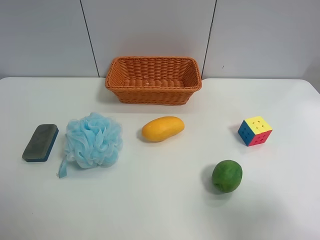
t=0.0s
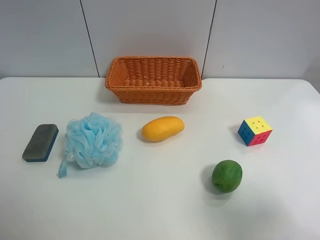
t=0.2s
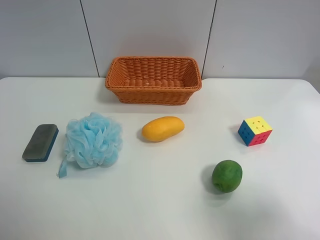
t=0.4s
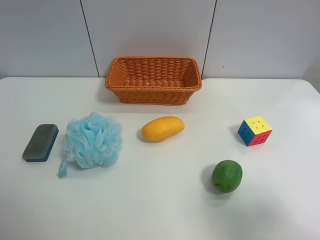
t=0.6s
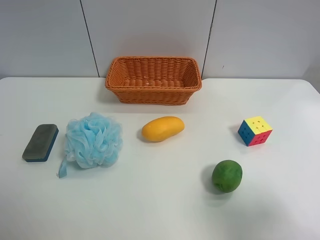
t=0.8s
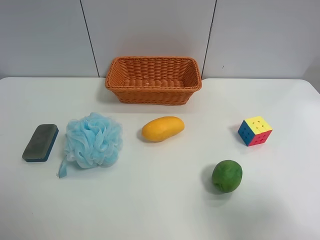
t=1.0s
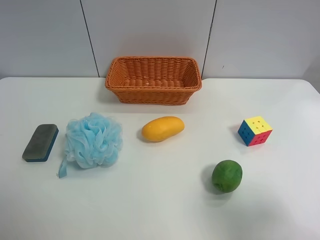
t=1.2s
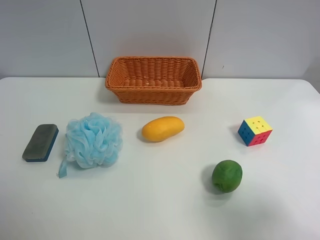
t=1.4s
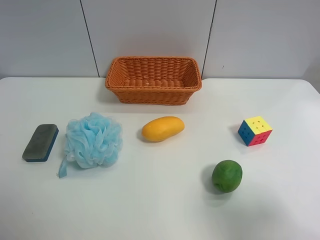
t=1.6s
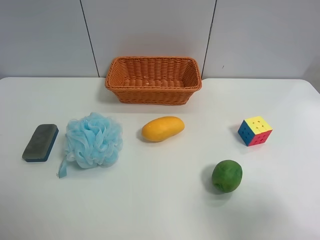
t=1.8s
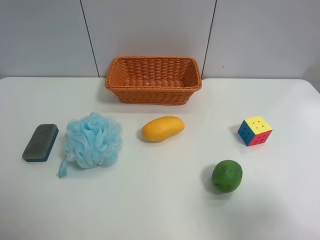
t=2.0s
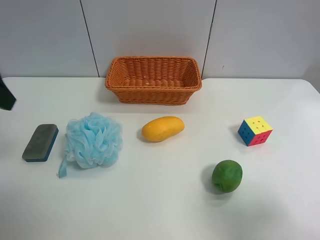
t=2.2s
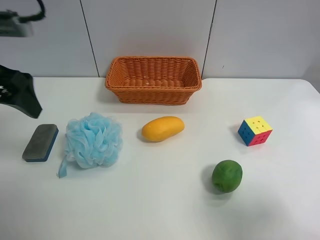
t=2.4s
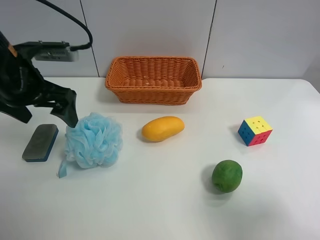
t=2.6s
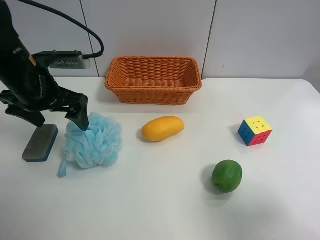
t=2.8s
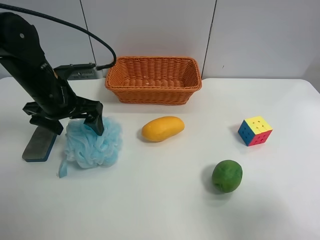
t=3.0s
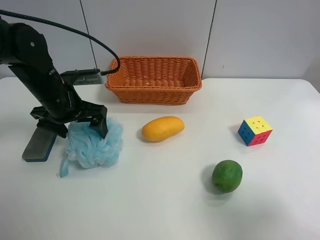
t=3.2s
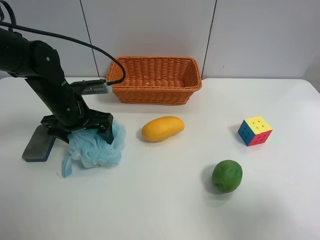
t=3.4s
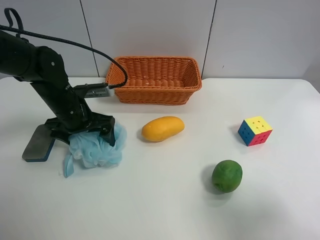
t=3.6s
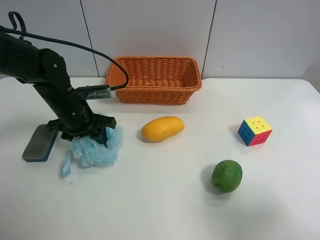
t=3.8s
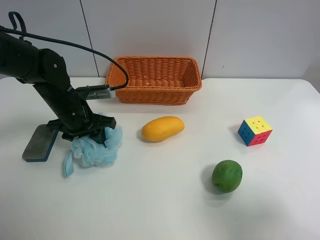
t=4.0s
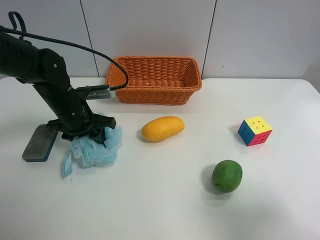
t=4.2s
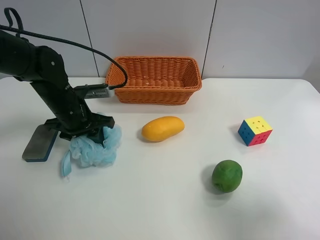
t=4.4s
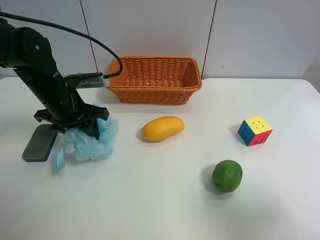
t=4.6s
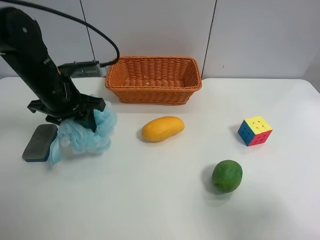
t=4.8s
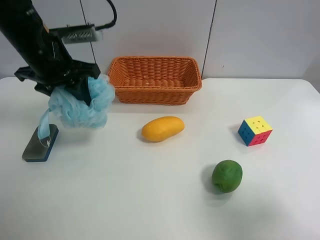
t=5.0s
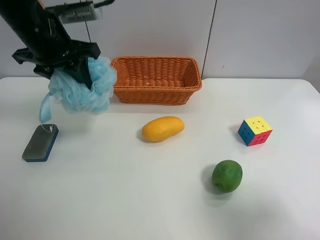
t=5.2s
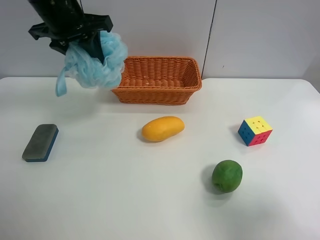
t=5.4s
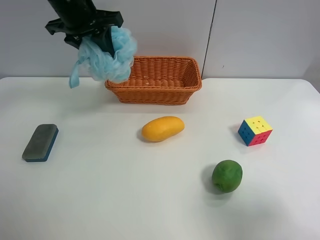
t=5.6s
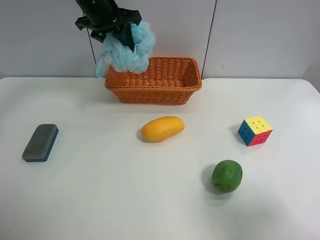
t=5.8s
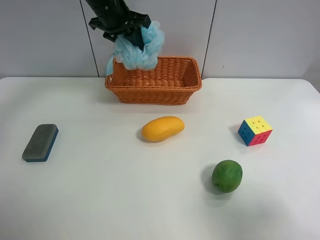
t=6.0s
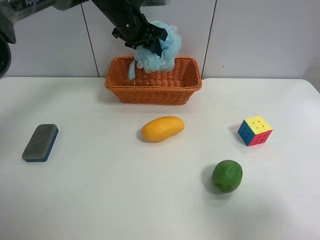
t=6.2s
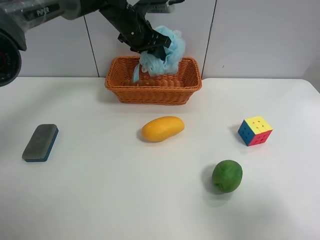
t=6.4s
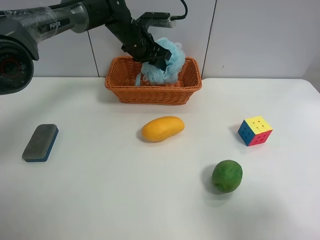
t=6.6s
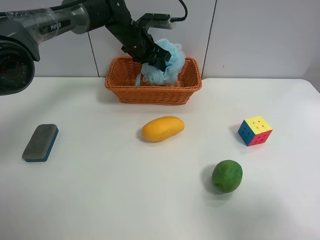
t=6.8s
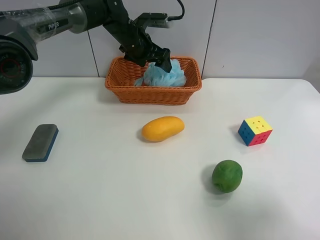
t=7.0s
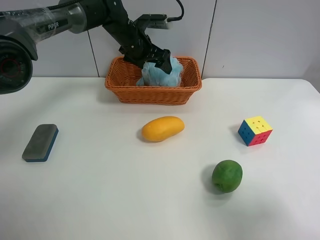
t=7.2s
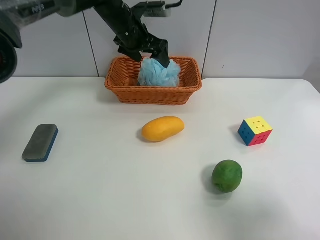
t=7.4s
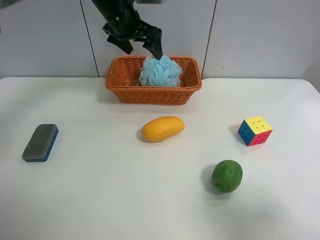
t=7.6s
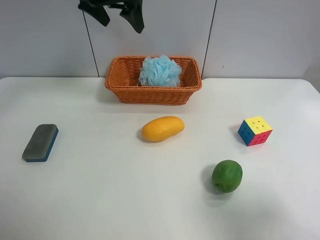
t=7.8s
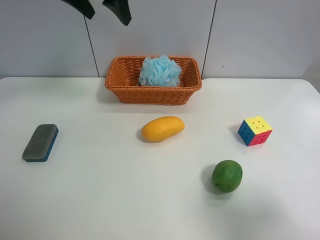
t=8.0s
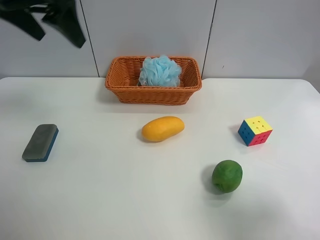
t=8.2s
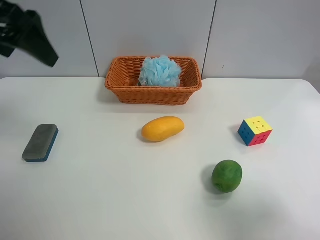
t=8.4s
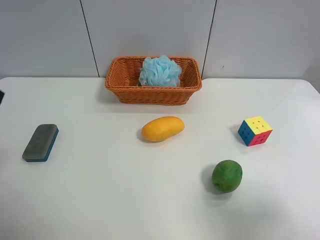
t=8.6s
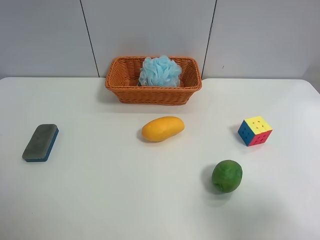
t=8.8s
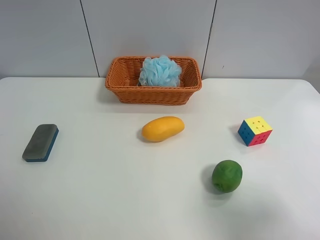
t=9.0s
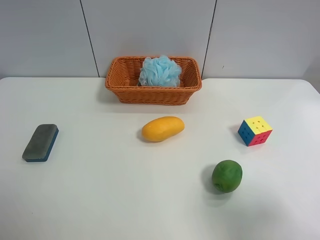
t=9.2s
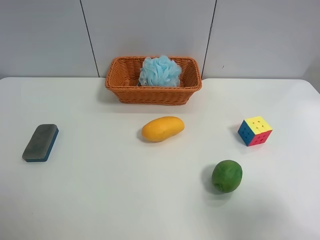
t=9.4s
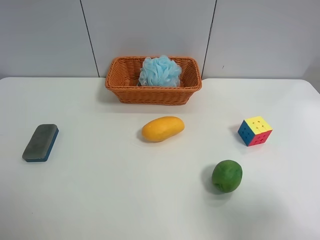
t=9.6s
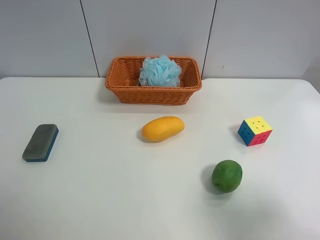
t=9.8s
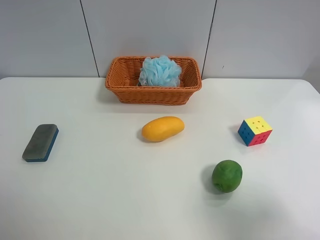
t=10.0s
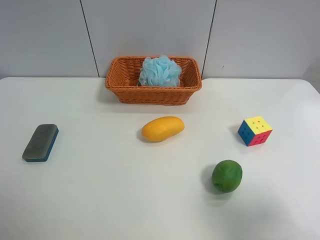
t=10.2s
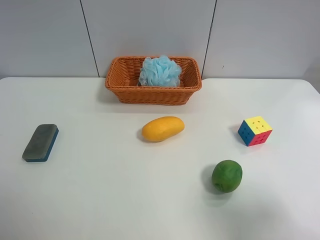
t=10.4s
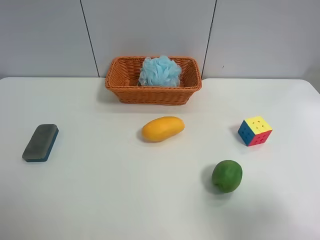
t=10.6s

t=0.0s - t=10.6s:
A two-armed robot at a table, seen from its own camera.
Task of the whole recording: use the left gripper to grab items from the table and place them in the basket.
Step, t=0.0s - t=3.6s: Grasp the Shower puff with the left gripper.
Step, t=3.8s - t=7.2s: Place the Shower puff into the basket with the left gripper.
t=1.6s - t=3.0s: The left gripper is displaced forward and downward by roughly 30 cm.
t=3.0s - t=4.6s: The left gripper closes.
t=4.6s - t=6.0s: The left gripper goes roughly 20 cm forward, upward and to the right.
t=6.0s - t=7.6s: The left gripper travels downward and back again, roughly 10 cm each way, and opens up.
t=7.6s - t=9.0s: The left gripper travels backward and to the left by about 50 cm.
